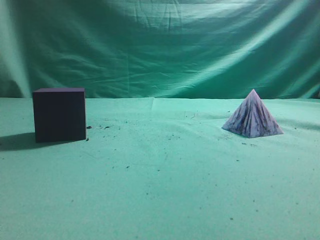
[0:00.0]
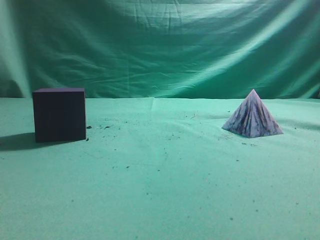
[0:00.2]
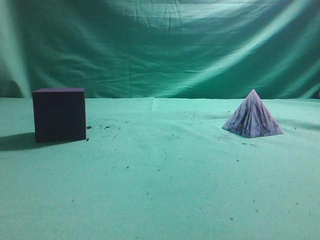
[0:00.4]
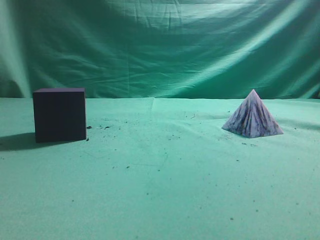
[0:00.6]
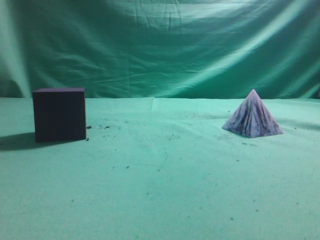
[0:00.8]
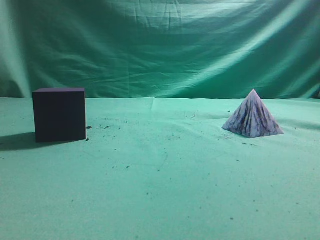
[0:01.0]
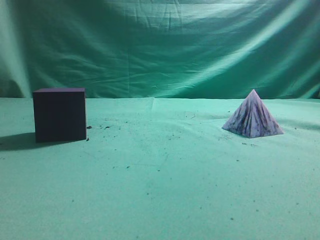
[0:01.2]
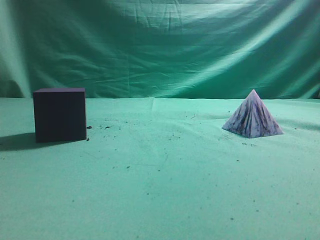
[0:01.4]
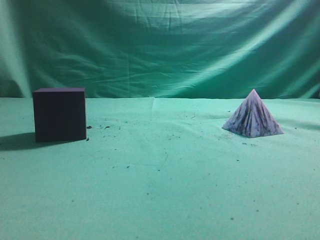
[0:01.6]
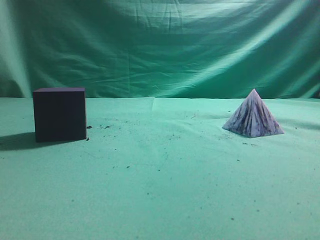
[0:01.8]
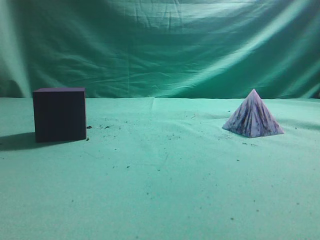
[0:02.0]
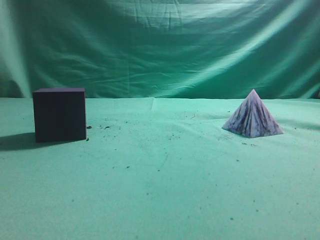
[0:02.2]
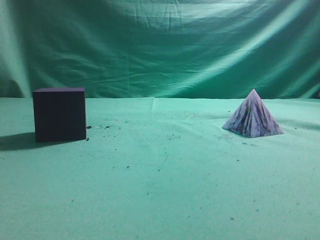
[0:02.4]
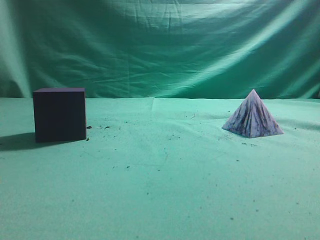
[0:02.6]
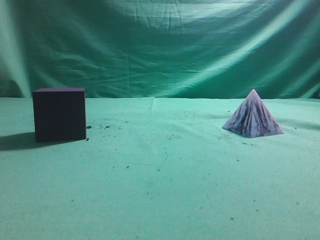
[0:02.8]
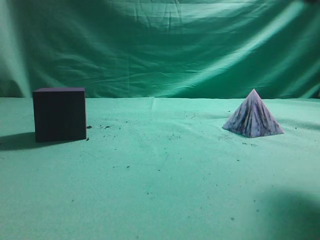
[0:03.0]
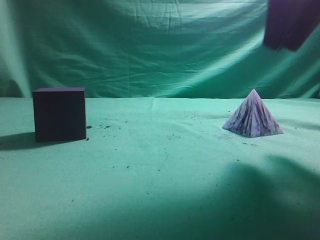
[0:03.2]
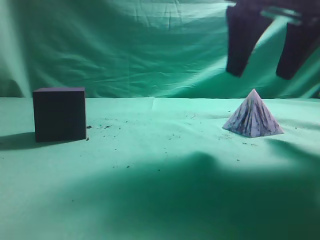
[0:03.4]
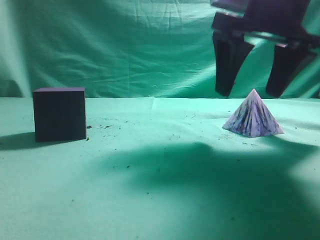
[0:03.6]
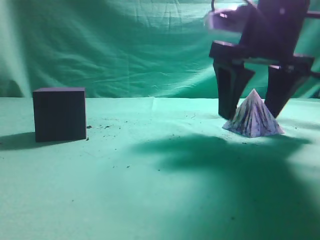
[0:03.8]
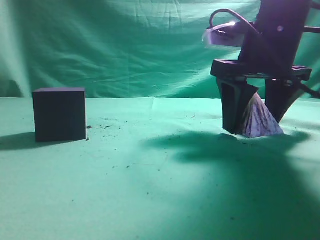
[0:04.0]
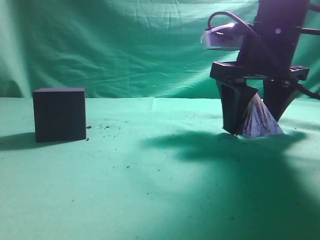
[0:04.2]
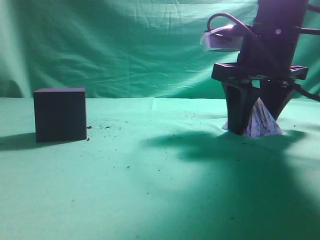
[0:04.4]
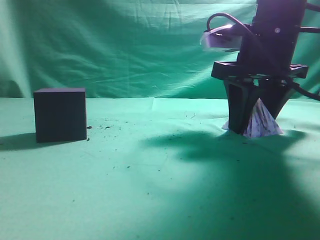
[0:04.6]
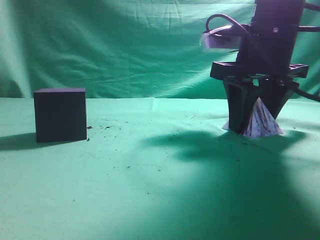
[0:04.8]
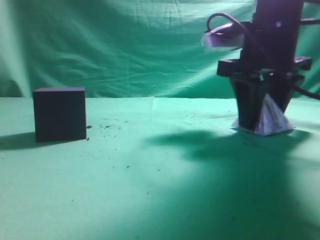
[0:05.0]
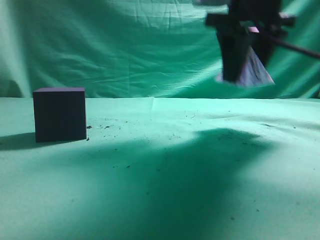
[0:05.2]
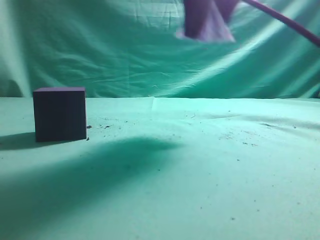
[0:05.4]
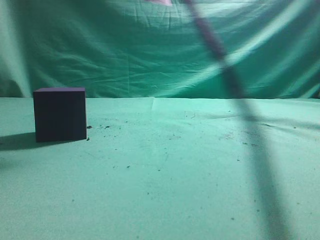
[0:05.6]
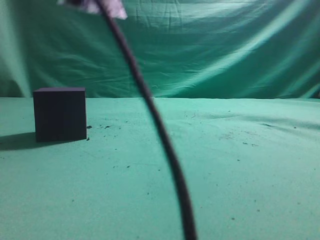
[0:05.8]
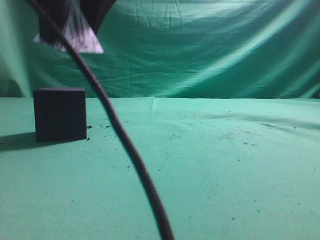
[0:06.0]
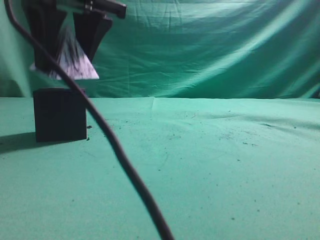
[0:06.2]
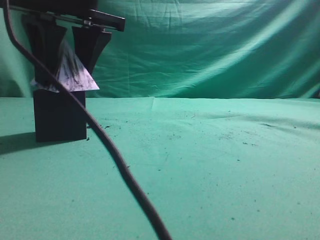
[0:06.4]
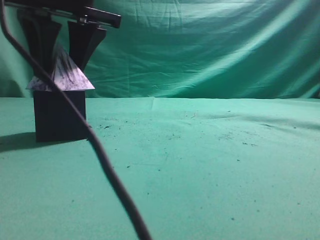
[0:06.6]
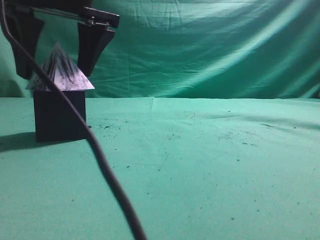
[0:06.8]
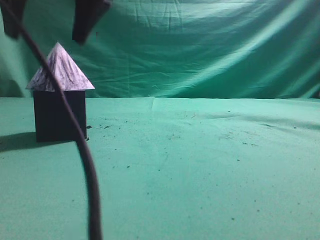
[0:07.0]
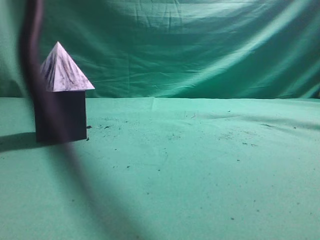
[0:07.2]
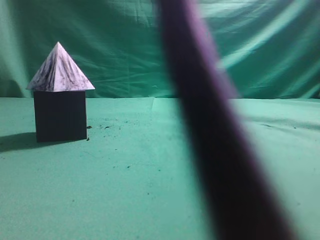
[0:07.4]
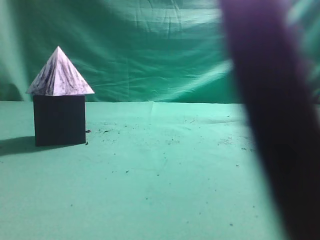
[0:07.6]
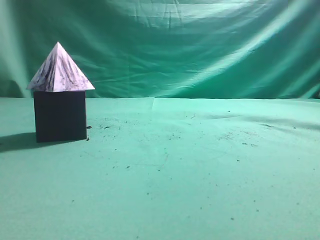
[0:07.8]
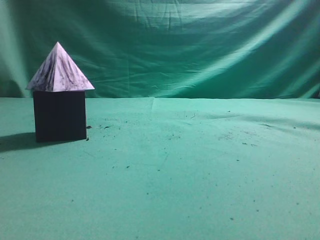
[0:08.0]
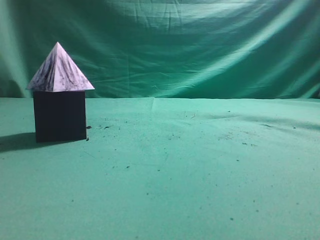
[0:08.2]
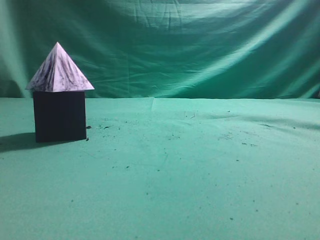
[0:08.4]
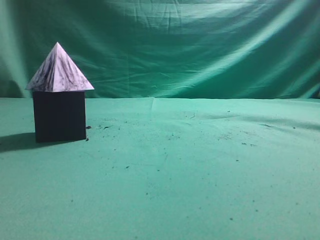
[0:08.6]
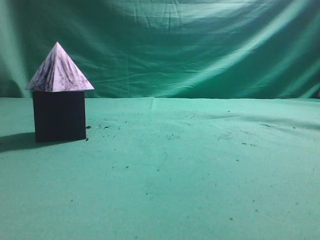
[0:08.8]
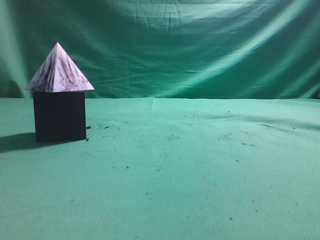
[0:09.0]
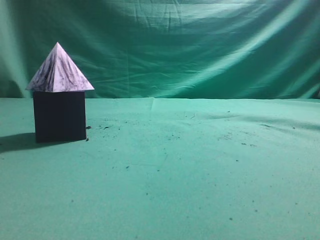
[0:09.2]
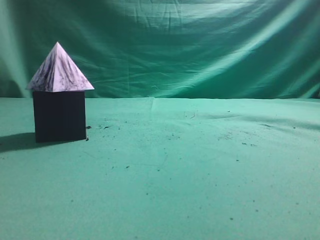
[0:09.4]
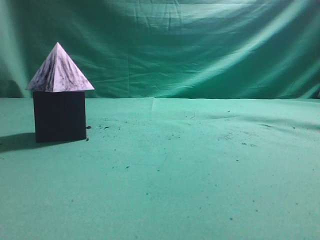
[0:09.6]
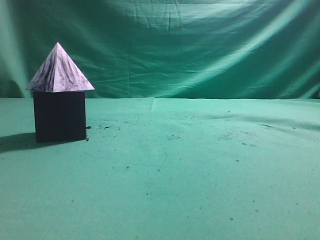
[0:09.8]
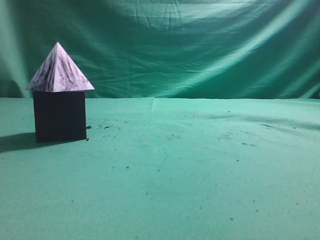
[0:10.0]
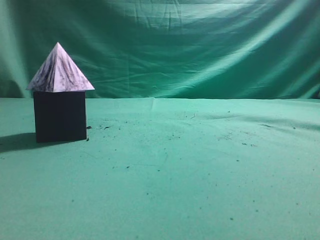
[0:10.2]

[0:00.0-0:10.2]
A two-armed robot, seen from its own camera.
Task of the whole recording: pick up the square pyramid from the table and place it on the cube block.
Step, 0:00.0 to 0:05.0: Grasp the triangular block.
Step, 0:05.2 to 0:06.8: Place the block onto the cube-shaped block.
0:01.4 to 0:03.0: The right gripper goes roughly 25 cm forward, upward and to the left.
0:03.0 to 0:04.4: The right gripper goes about 20 cm downward and forward, and opens its fingers.
0:04.4 to 0:05.8: The right gripper goes approximately 25 cm to the left and upward.
0:05.8 to 0:07.2: The right gripper goes downward and returns, approximately 10 cm each way, and opens and closes again.
0:07.2 to 0:08.8: The right gripper is displaced to the right and backward by roughly 40 cm, and closes its fingers.
